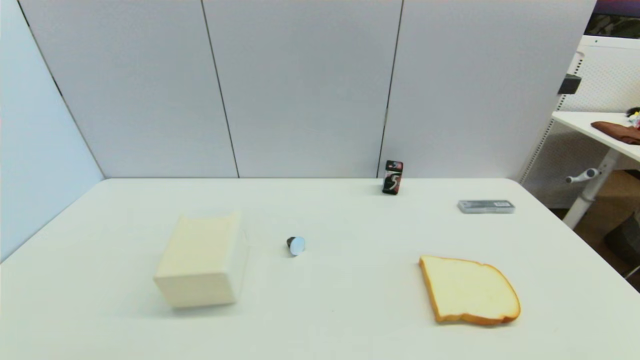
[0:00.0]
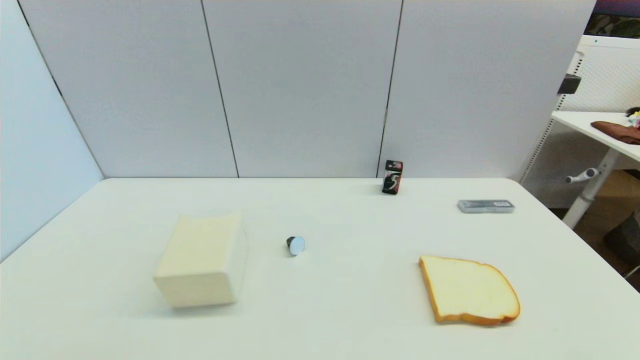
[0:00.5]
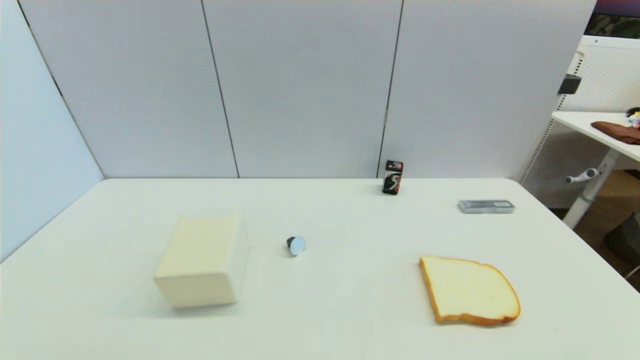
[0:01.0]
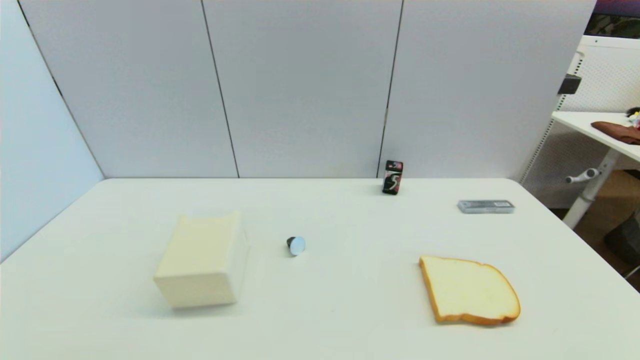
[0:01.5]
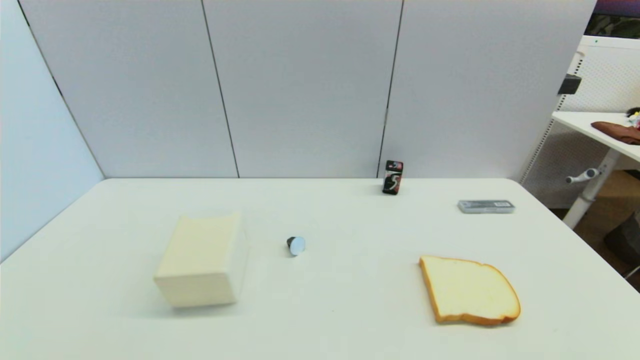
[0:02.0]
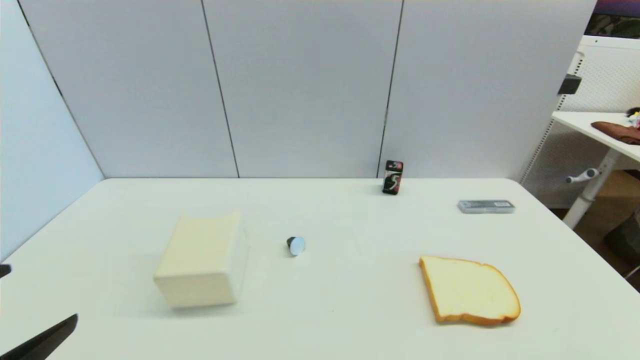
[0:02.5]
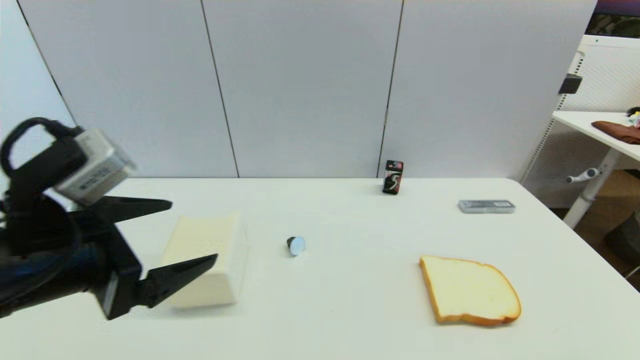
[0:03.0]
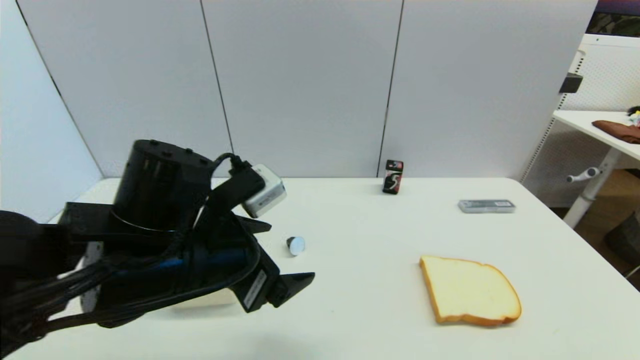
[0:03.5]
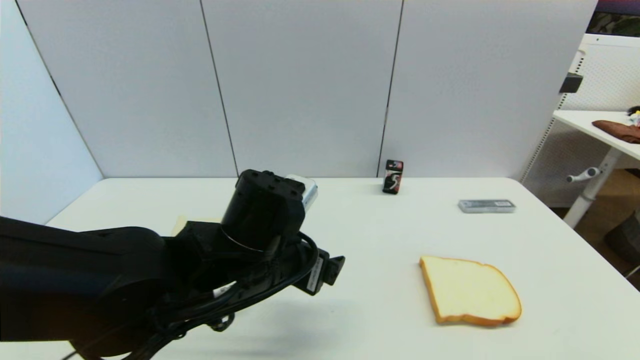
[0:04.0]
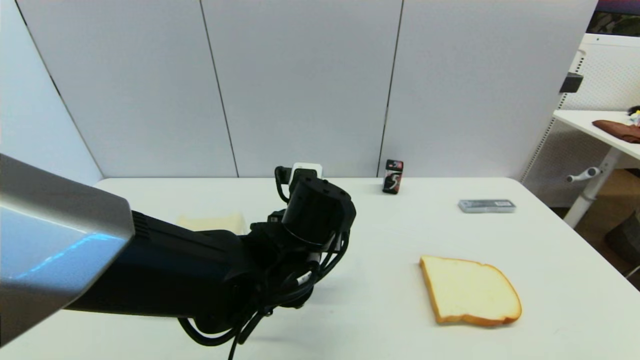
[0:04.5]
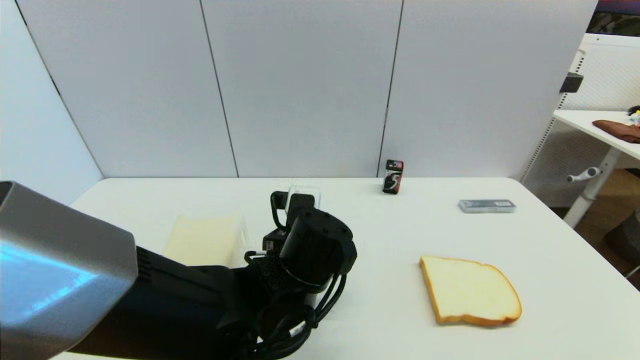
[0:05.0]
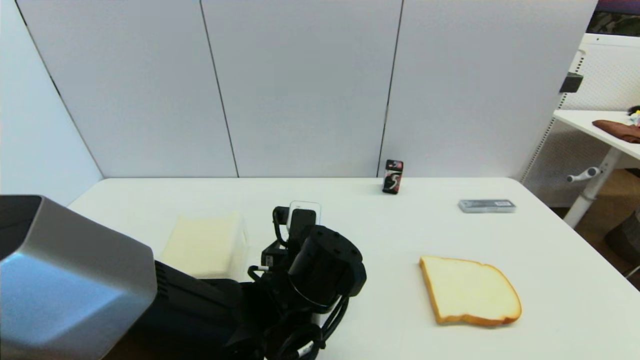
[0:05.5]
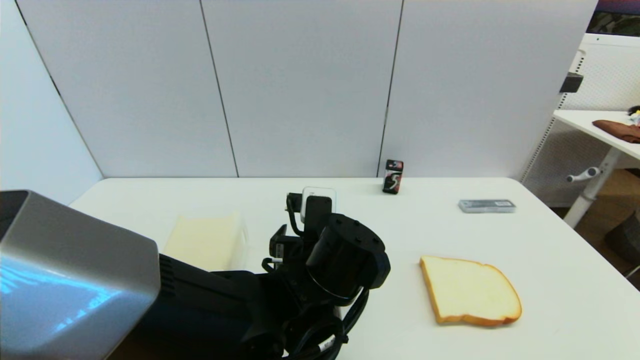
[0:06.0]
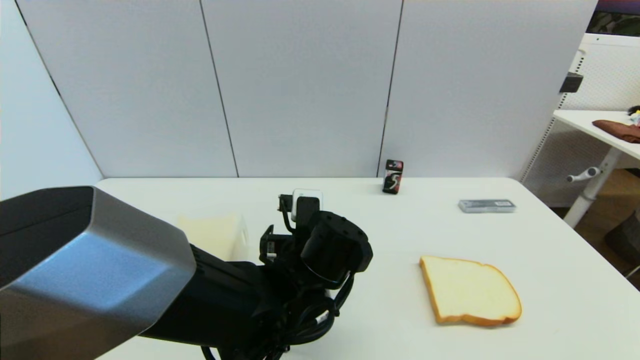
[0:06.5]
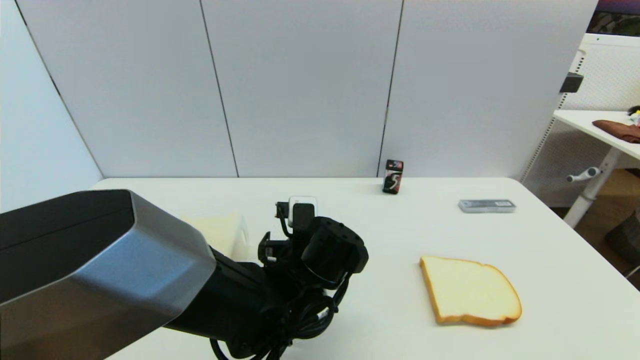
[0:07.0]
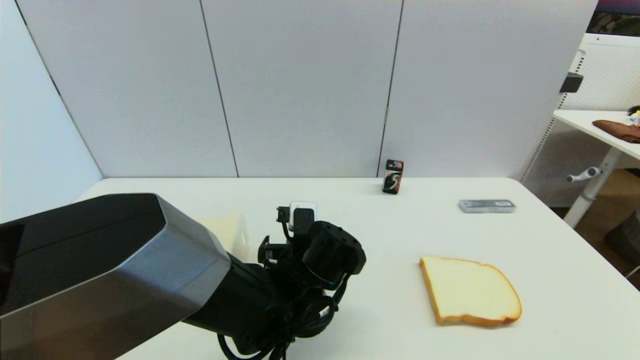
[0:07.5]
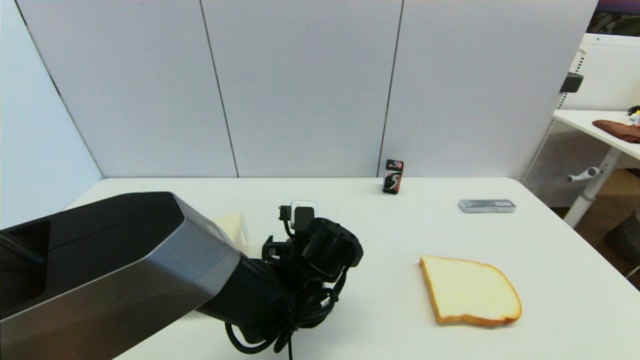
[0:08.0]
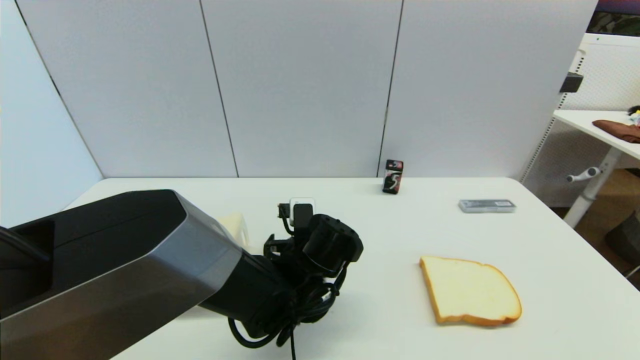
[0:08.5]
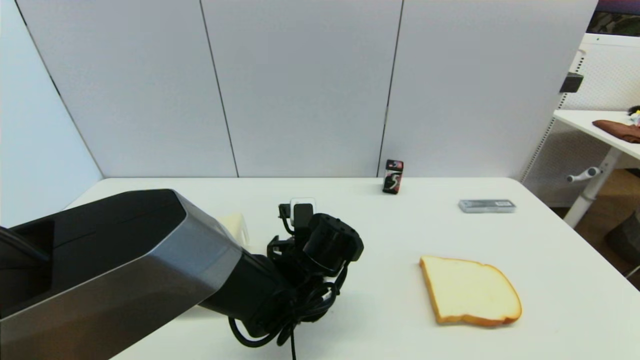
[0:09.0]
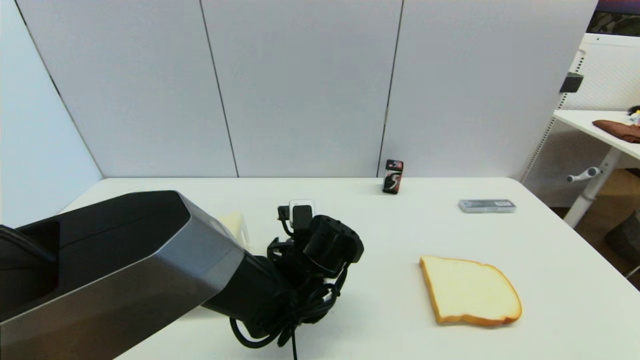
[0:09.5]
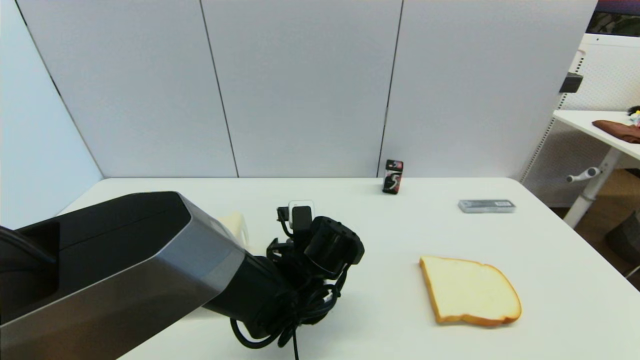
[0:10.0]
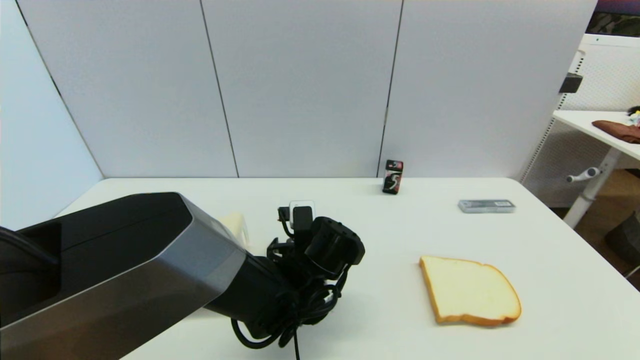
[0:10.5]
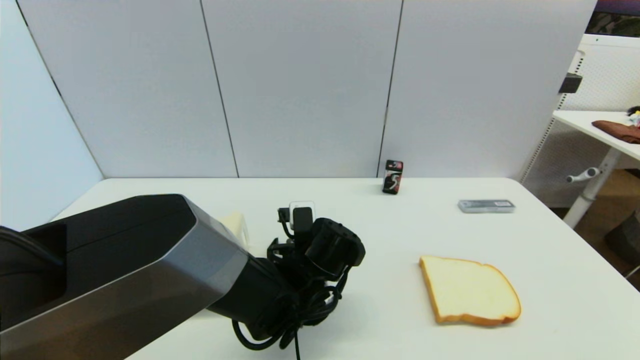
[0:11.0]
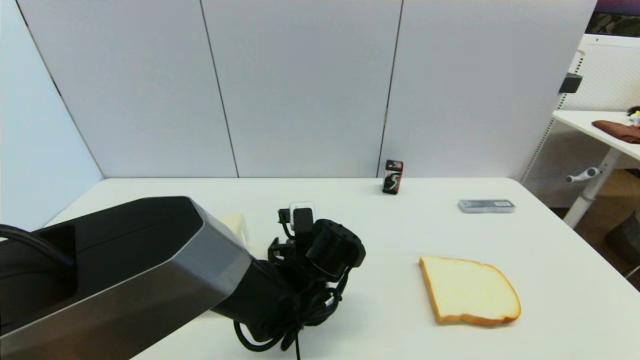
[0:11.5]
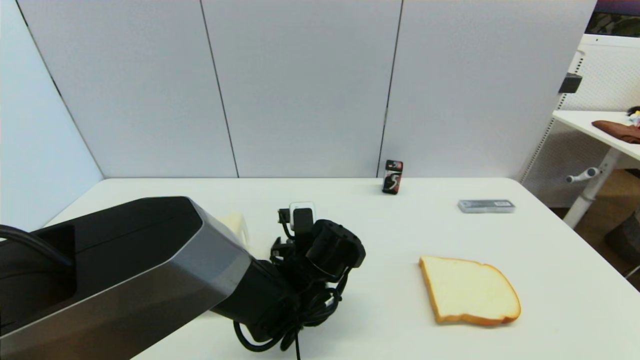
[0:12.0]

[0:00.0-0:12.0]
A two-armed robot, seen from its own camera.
0:02.0 to 0:04.0: The left gripper shifts some 35 cm to the right and forward.
0:04.0 to 0:06.0: The left gripper heads to the right, covering roughly 5 cm.
0:06.0 to 0:08.0: The left gripper shifts some 10 cm downward and forward.
0:08.0 to 0:10.0: There are only small adjustments of the grippers.
0:10.0 to 0:12.0: Both grippers stay put.

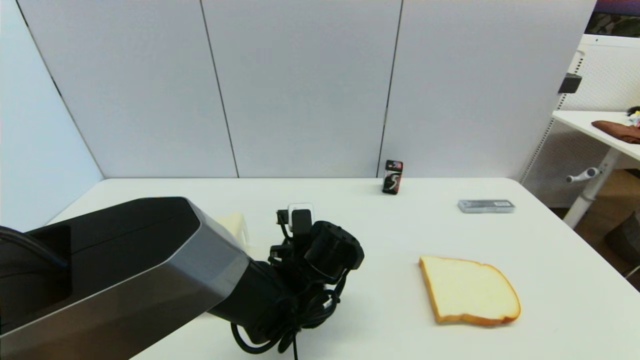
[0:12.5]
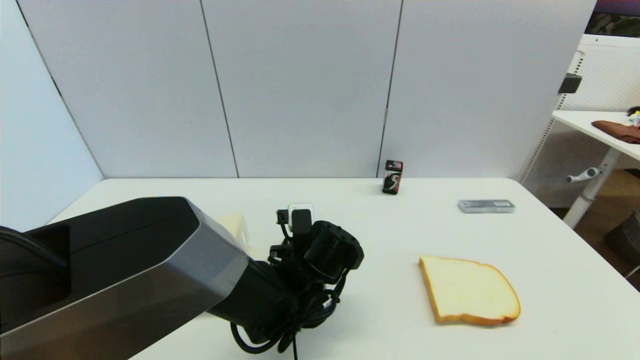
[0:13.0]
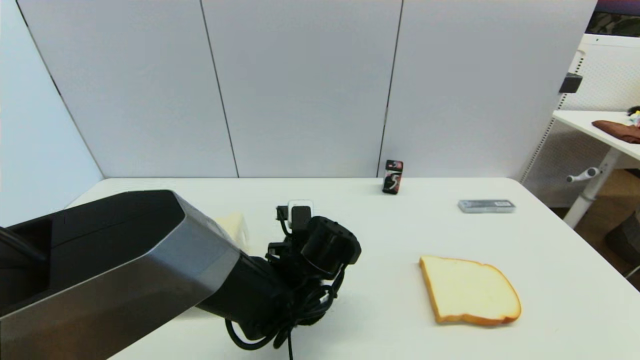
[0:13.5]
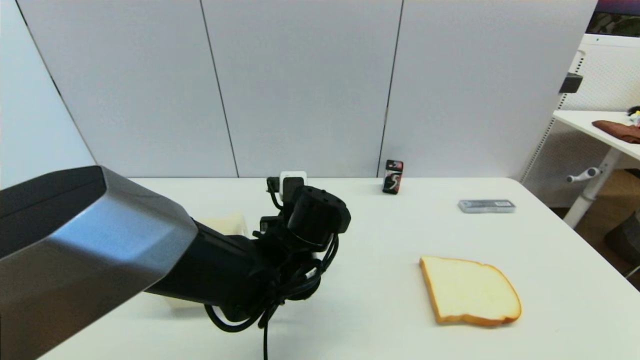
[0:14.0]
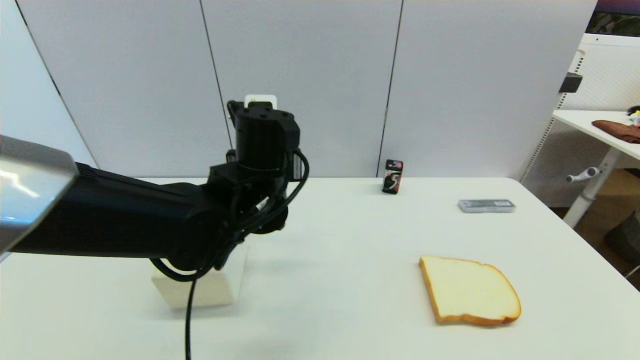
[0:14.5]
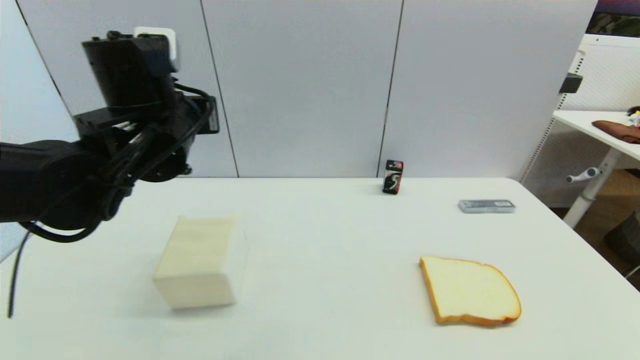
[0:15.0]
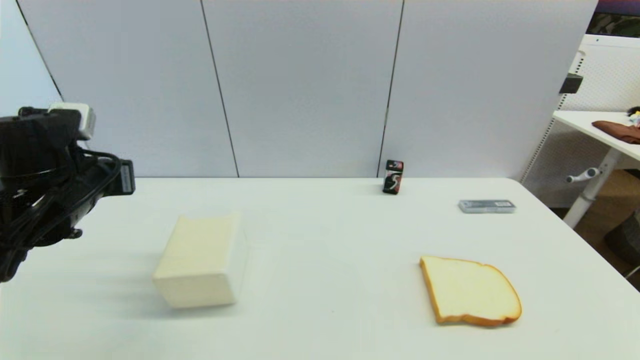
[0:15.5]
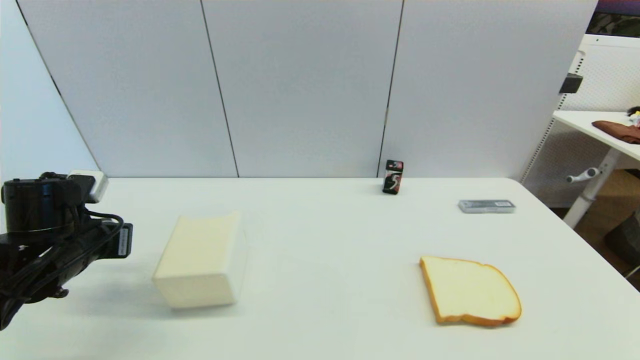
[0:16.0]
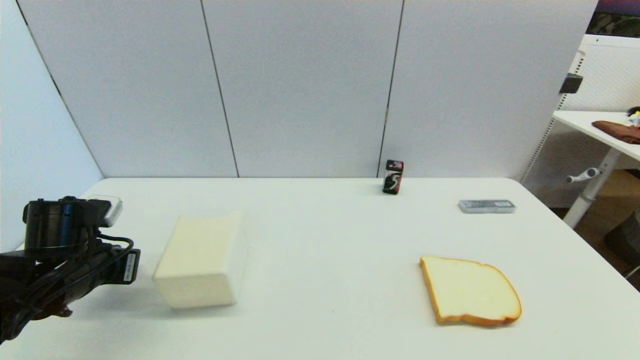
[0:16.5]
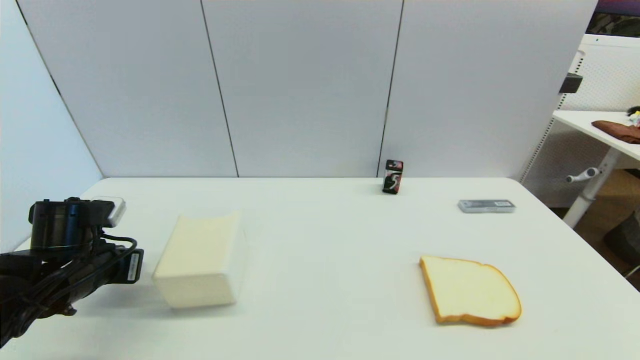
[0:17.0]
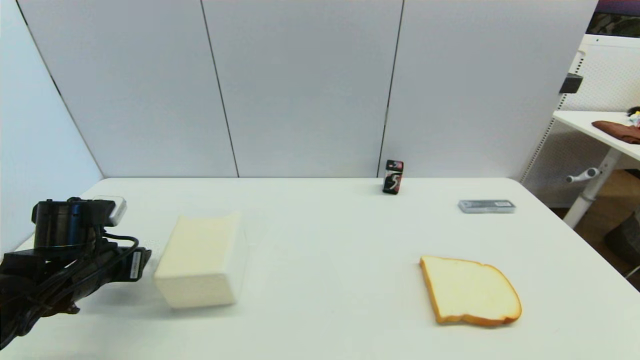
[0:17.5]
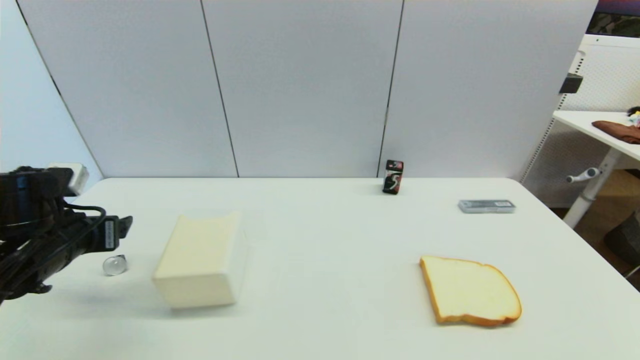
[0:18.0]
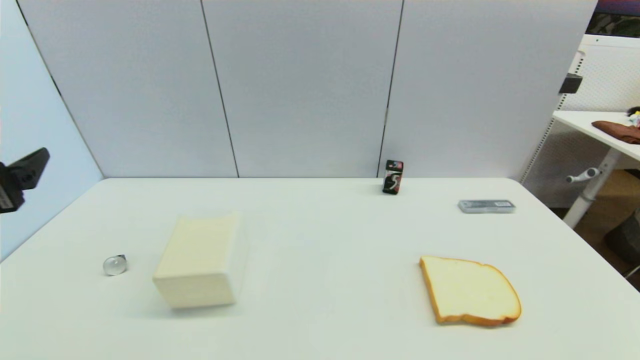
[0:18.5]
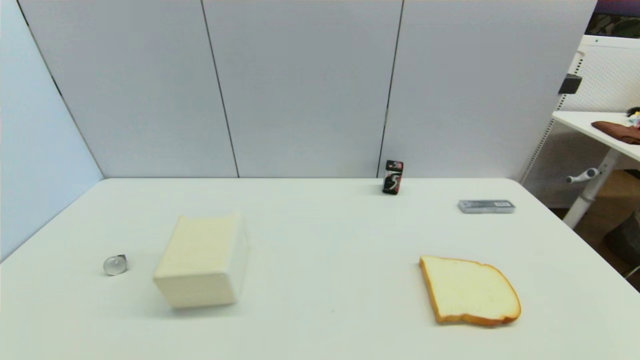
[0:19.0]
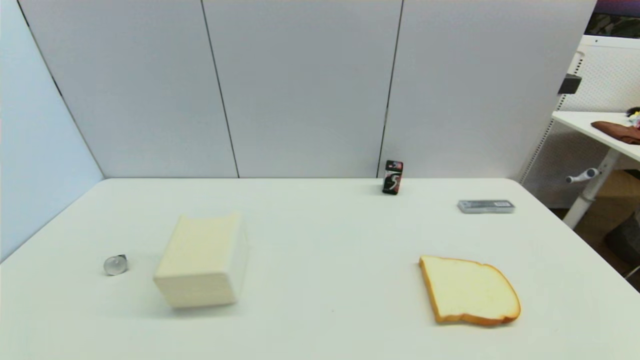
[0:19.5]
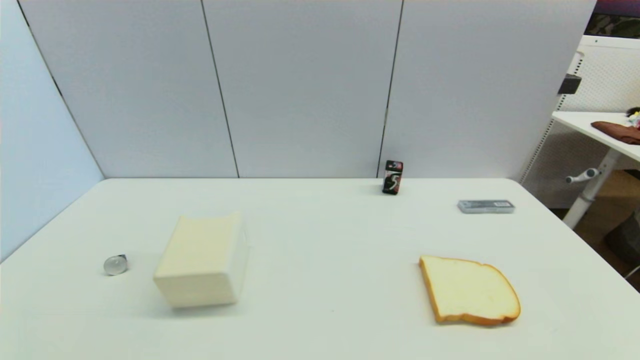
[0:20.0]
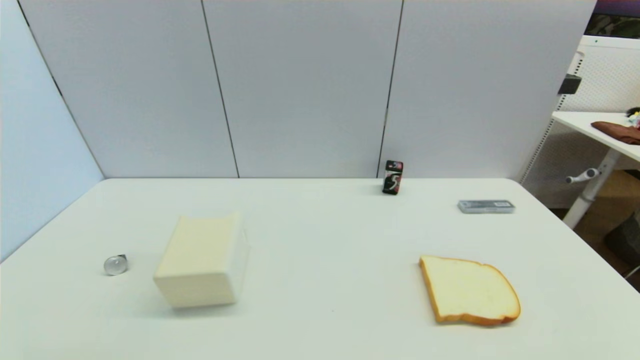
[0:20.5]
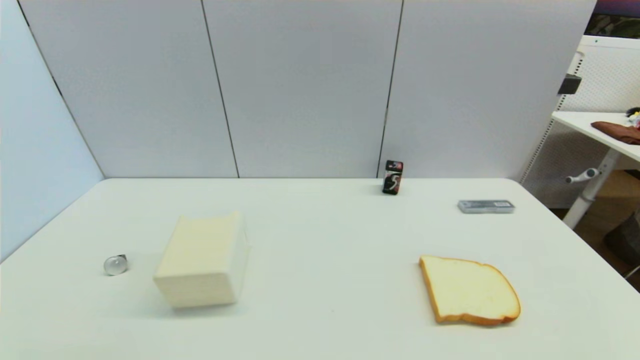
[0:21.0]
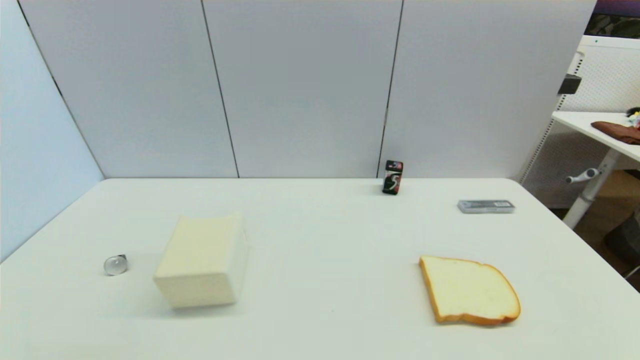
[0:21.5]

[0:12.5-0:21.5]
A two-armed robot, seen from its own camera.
Step, 0:14.0 to 0:17.0: Place the coffee capsule on the table with left gripper.
0:12.5 to 0:14.5: The left gripper is displaced upward by roughly 15 cm.
0:14.5 to 0:17.0: The left gripper travels to the left and downward by about 25 cm.
0:17.0 to 0:19.5: The left gripper is displaced backward by roughly 25 cm, and opens.
